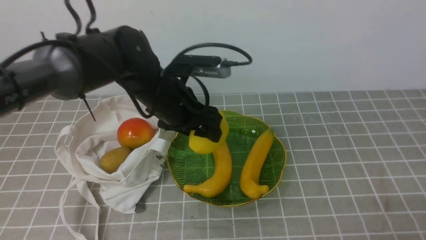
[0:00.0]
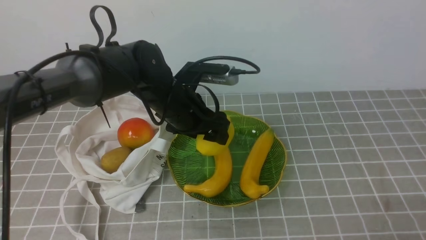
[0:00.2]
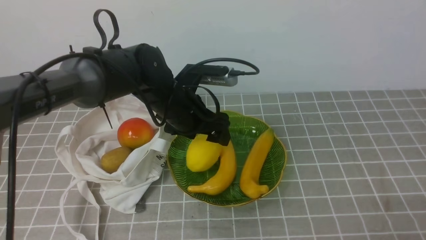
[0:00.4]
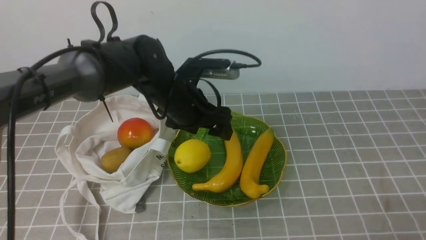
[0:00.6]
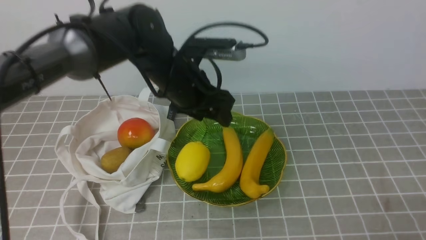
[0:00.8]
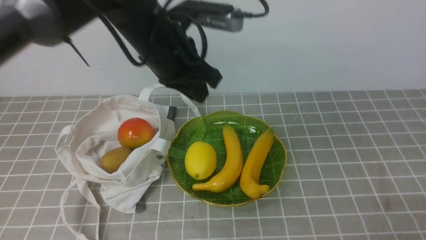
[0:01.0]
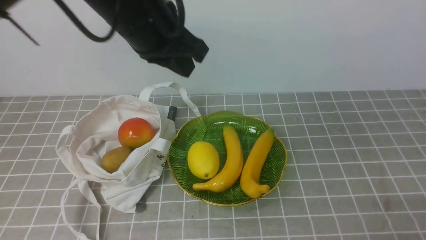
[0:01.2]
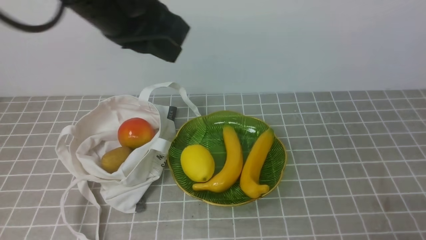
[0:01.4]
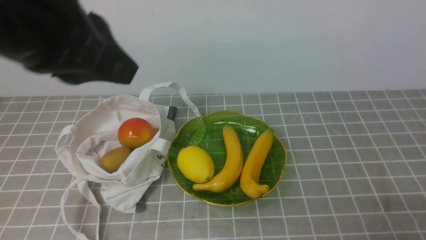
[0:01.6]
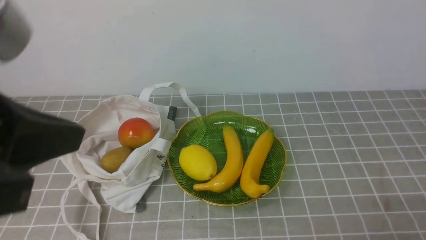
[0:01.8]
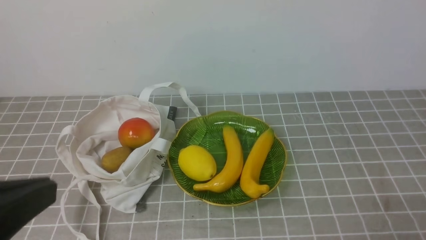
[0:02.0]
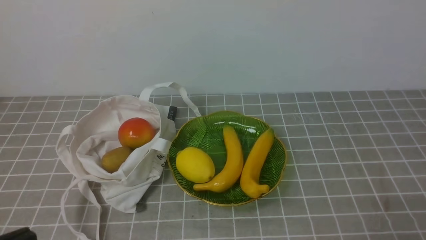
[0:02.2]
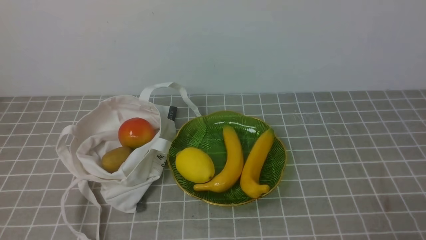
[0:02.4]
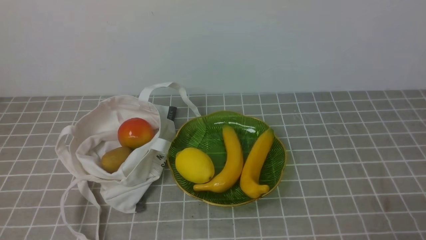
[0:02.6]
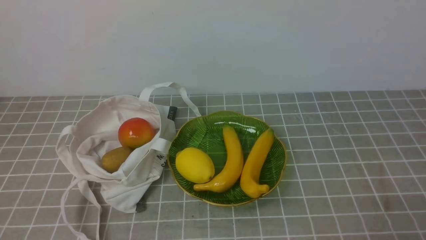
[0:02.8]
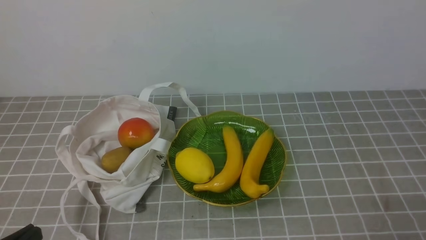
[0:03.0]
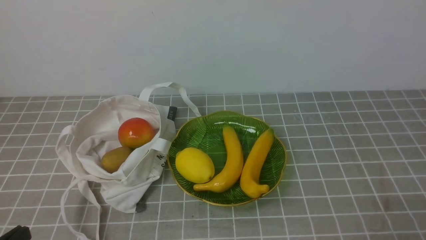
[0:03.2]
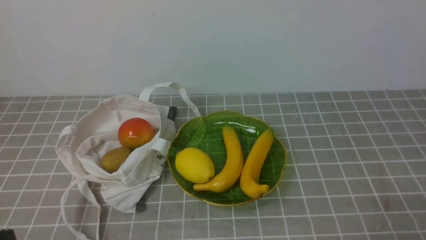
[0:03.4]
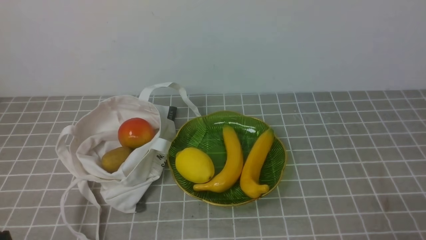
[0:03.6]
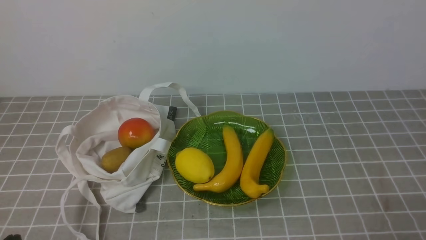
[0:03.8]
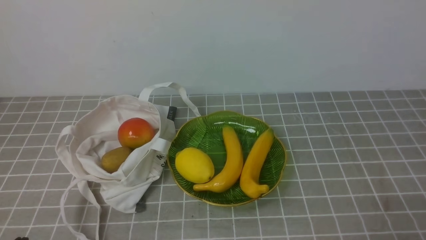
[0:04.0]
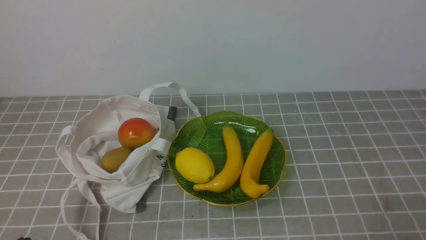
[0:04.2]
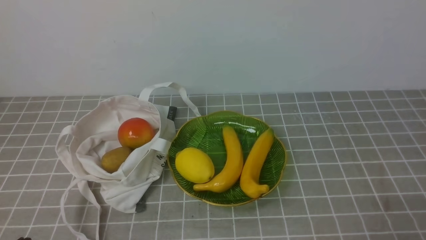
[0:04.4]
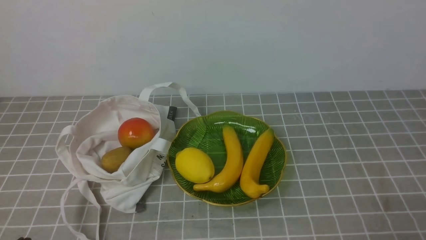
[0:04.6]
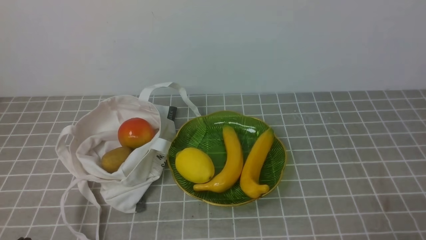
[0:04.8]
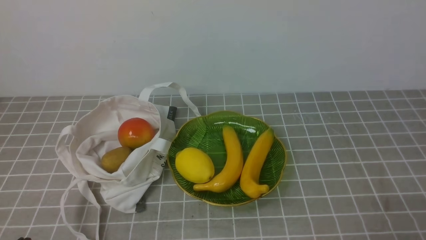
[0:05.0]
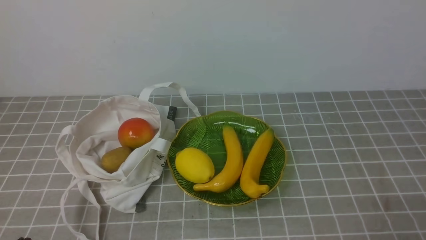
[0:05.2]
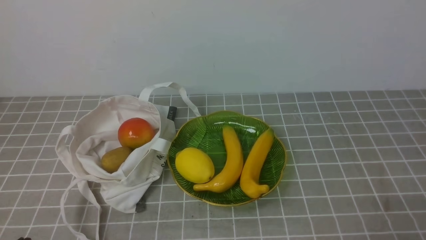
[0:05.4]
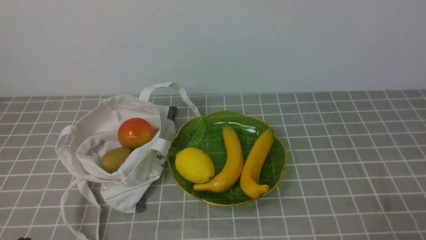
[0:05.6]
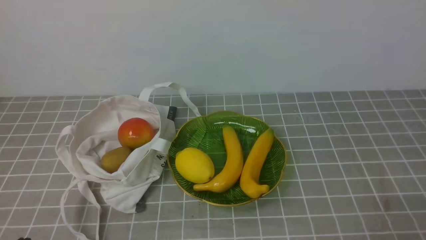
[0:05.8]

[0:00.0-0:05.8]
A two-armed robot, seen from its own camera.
Step, 0:00.0 to 0:00.6: use the left arm to put the lemon into the empty plate on the right.
0:00.0 to 0:01.4: The left gripper is displaced upward and backward by approximately 20 cm, and closes.
0:01.4 to 0:02.8: The left gripper is displaced backward, downward and to the left by some 30 cm.
0:04.4 to 0:05.8: Both grippers stay put.
